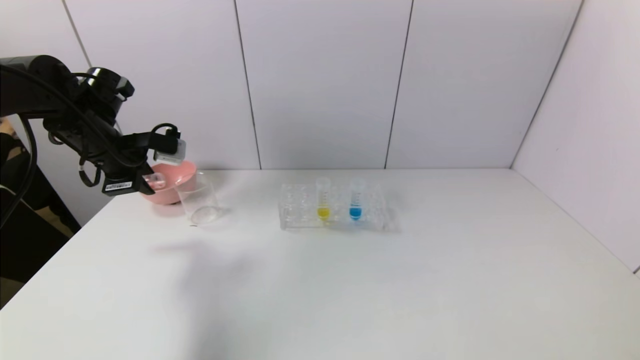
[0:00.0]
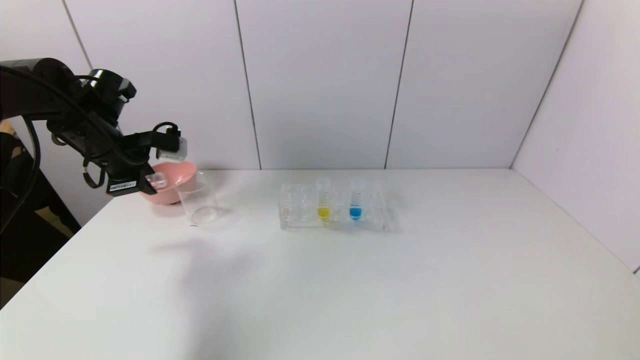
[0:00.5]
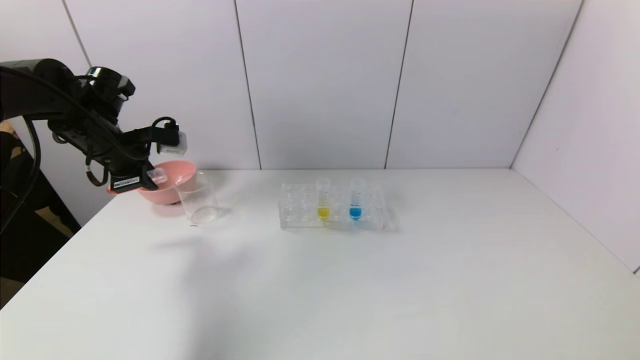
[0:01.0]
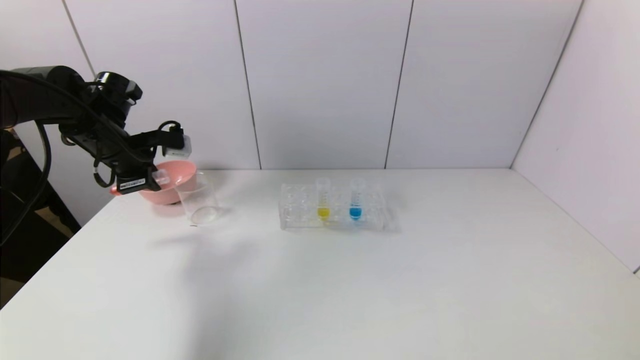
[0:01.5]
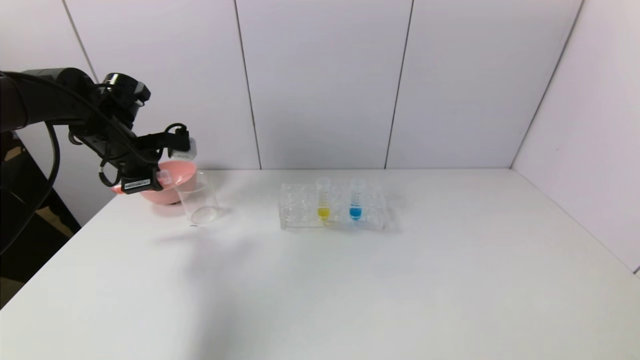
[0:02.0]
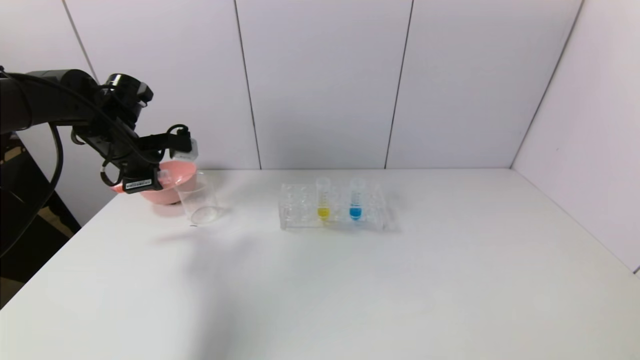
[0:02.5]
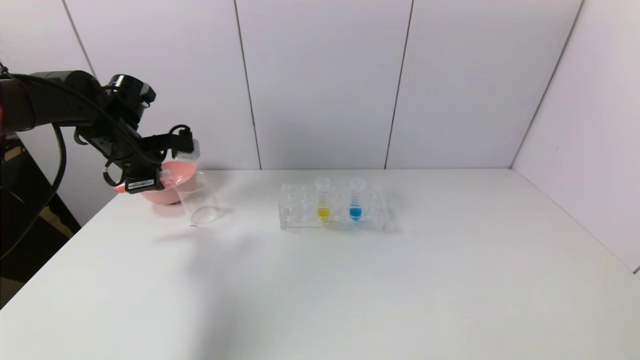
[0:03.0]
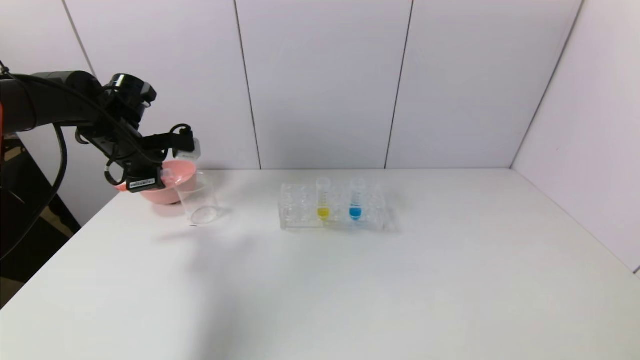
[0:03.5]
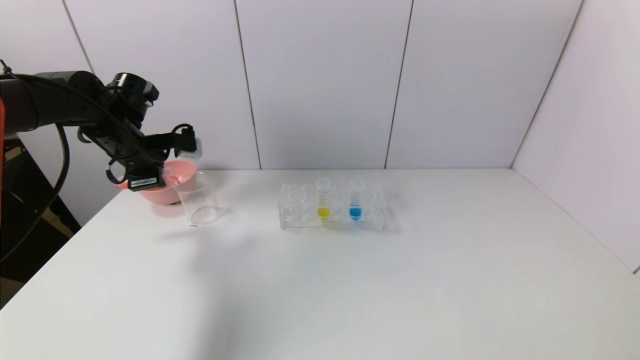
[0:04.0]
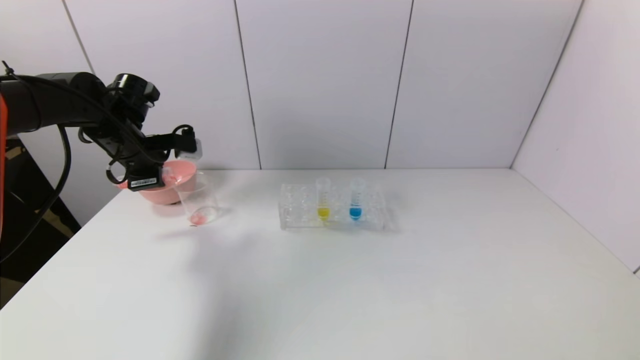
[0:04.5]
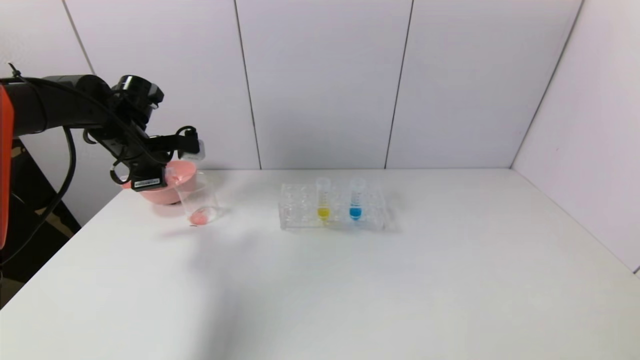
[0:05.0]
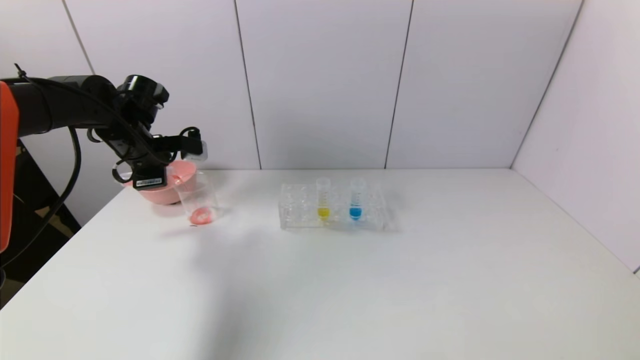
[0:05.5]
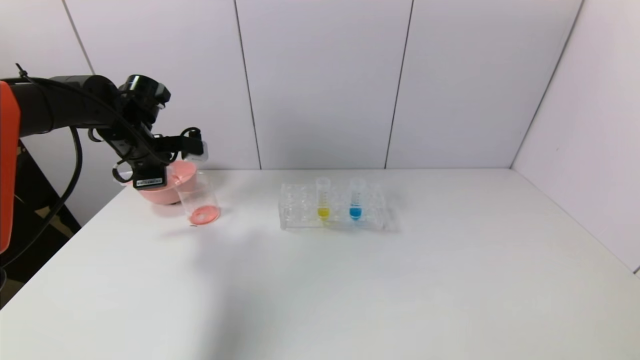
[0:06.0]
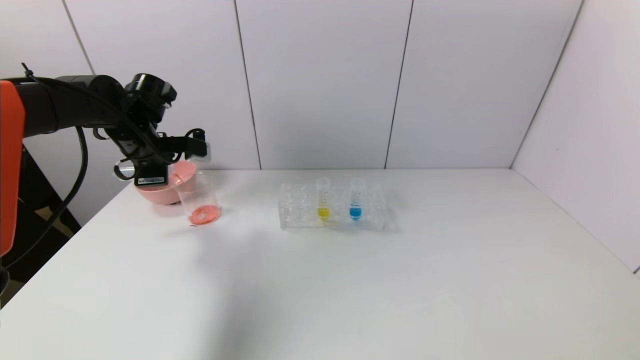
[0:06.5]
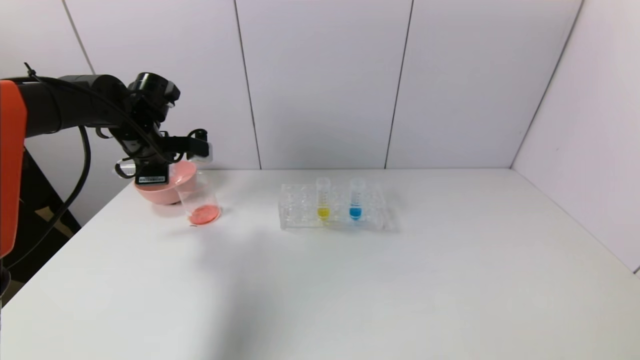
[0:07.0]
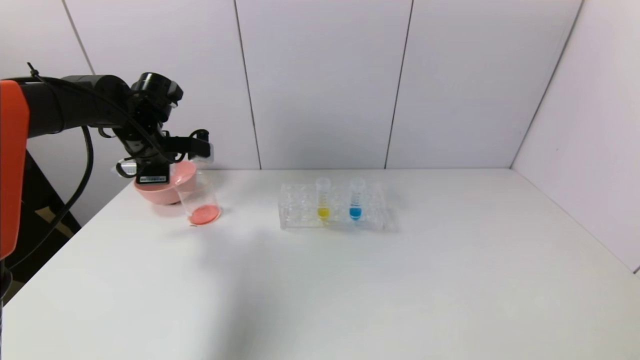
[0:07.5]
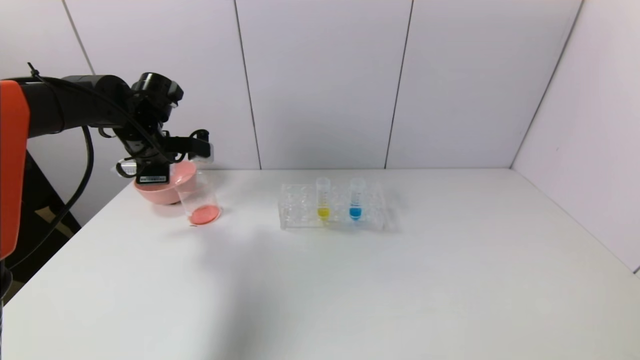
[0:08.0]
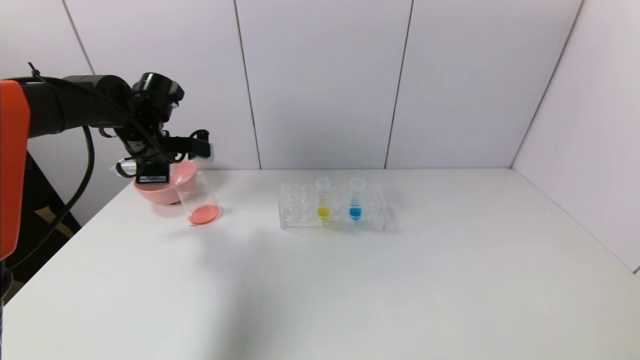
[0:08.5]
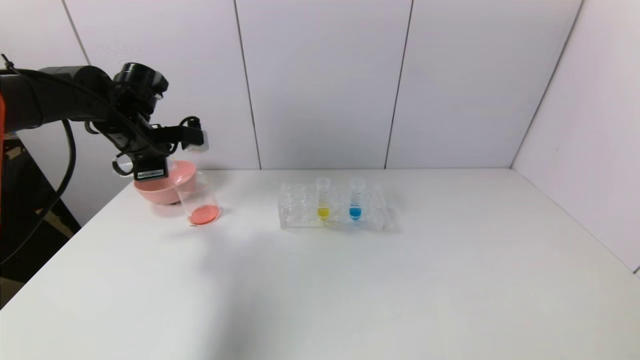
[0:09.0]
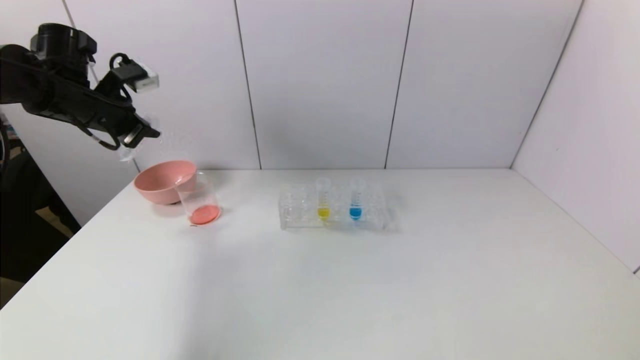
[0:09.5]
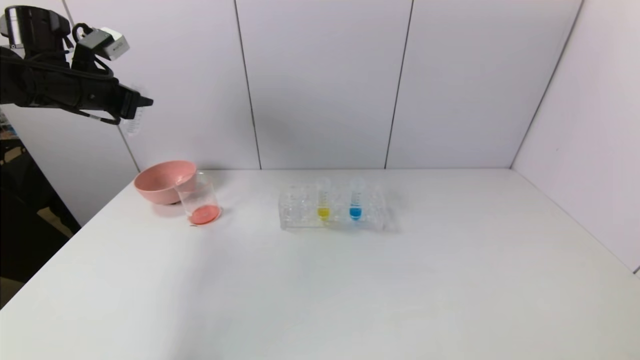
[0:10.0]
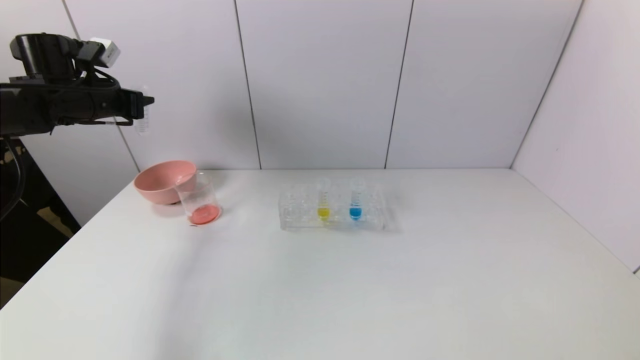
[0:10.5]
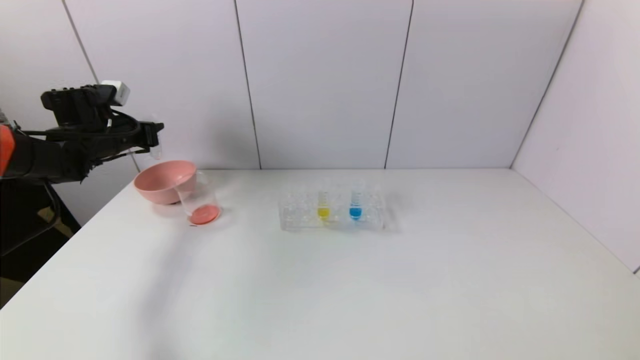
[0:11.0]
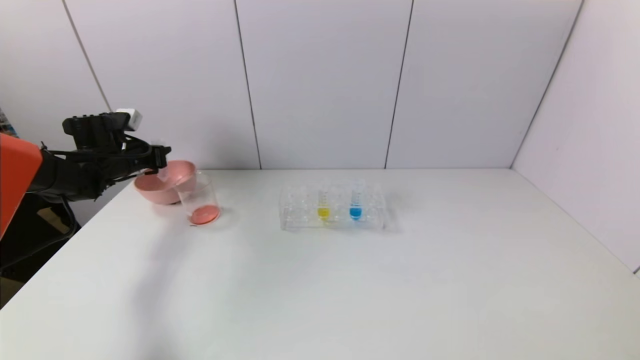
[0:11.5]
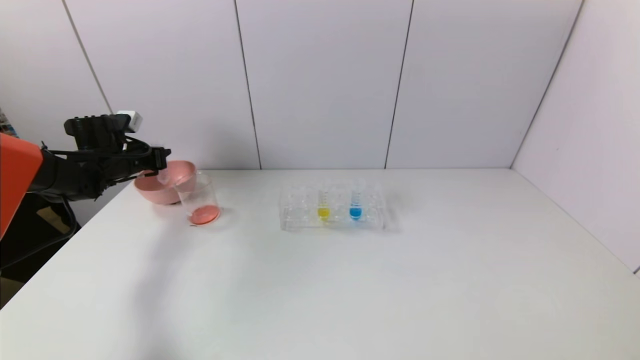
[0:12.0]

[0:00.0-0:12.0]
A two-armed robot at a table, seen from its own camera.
Task of the whole recording: pick up the test tube with red pigment and the test tube with blue pigment by grippers and pour them into the container.
Step, 0.0 to 9.5 s: Pour the red reagent into the graduated cylinder with the left gripper.
0.0 to 2.0 s: The grippers make only small movements.
2.0 to 4.0 s: Both grippers stay put.
4.0 to 8.0 s: The grippers make only small movements.
8.0 to 10.0 s: The left gripper is displaced to the left and upward by approximately 10 cm.
10.0 to 12.0 s: The left gripper travels downward by roughly 15 cm.

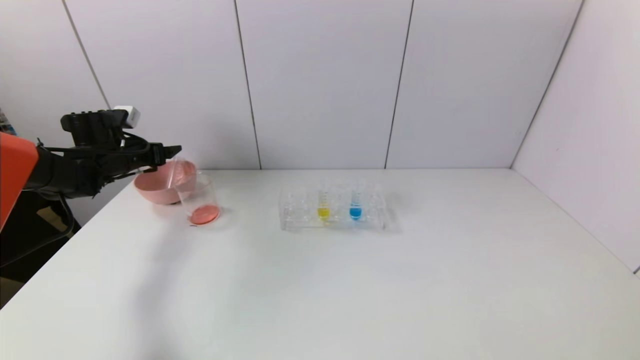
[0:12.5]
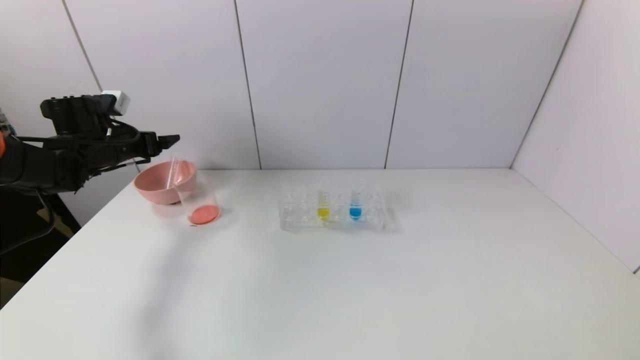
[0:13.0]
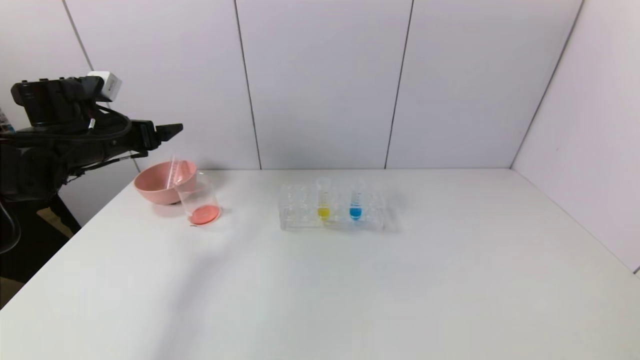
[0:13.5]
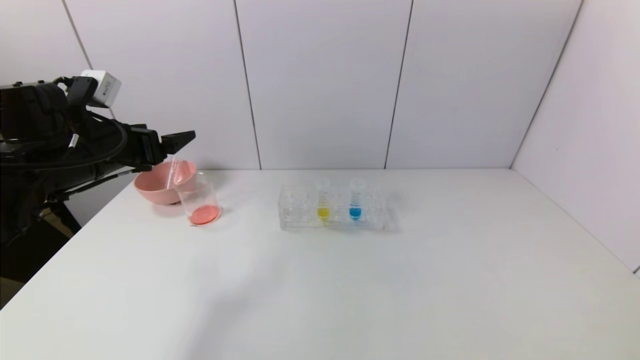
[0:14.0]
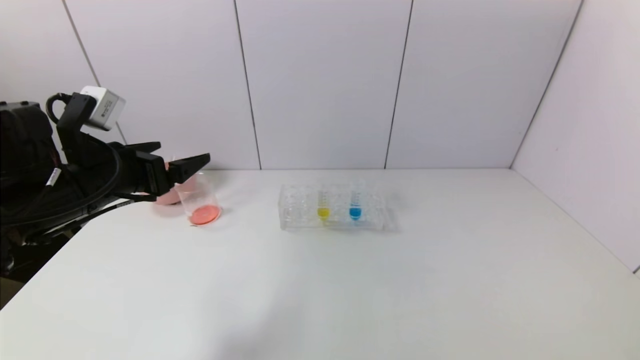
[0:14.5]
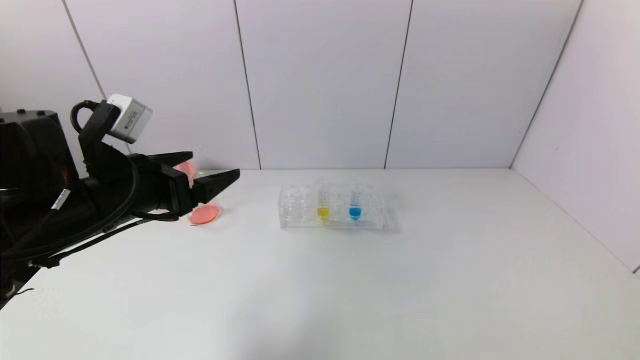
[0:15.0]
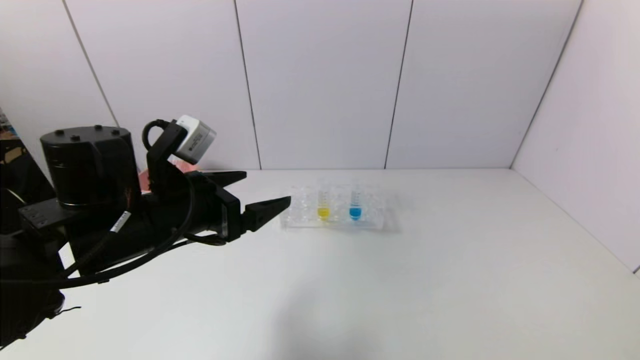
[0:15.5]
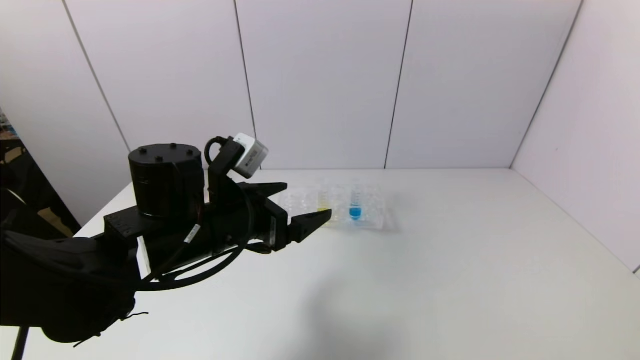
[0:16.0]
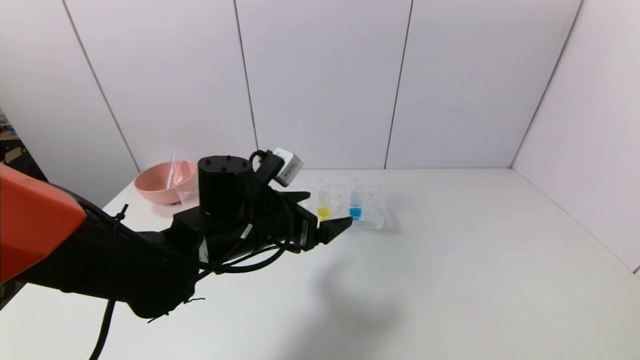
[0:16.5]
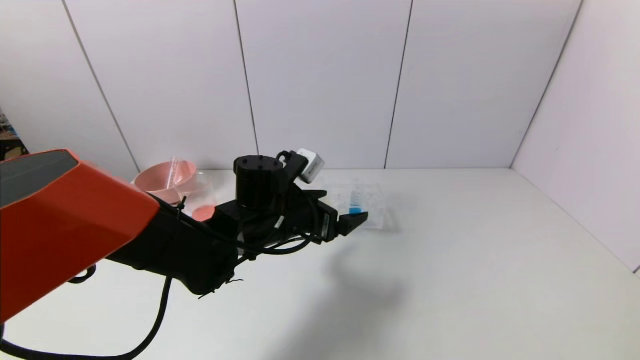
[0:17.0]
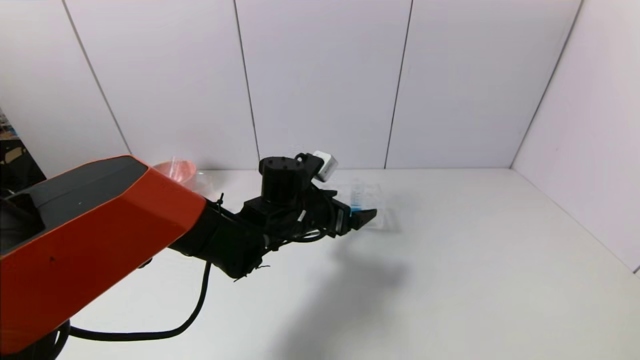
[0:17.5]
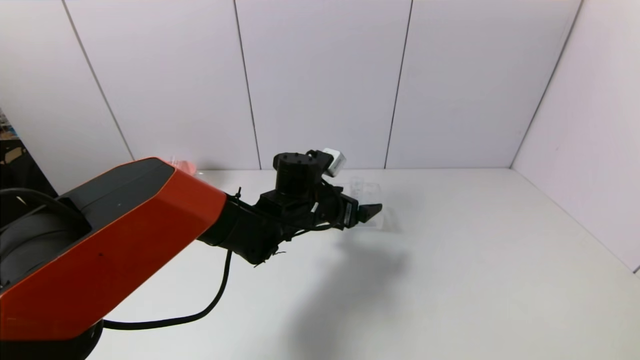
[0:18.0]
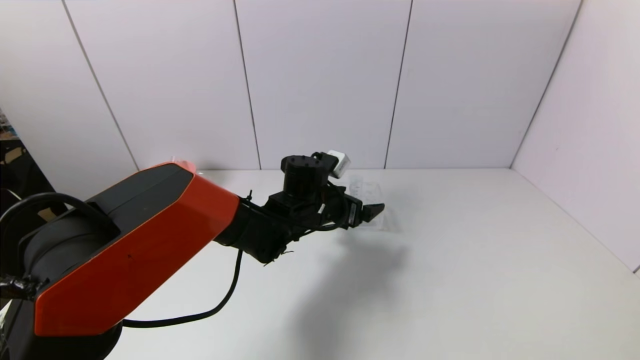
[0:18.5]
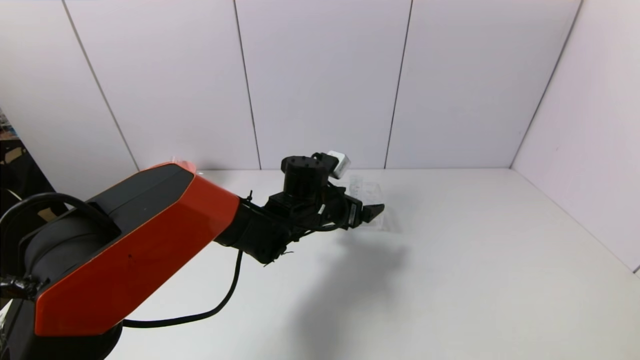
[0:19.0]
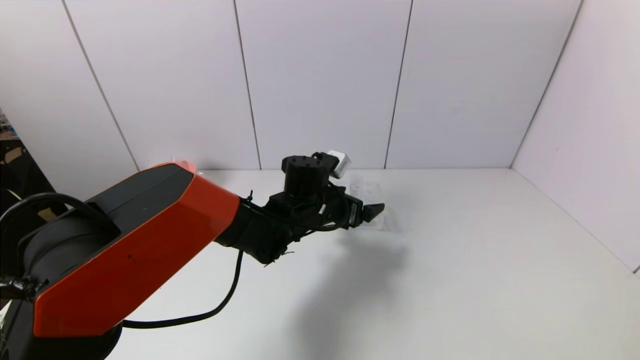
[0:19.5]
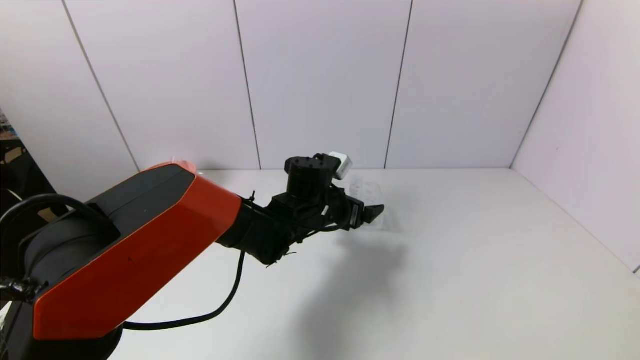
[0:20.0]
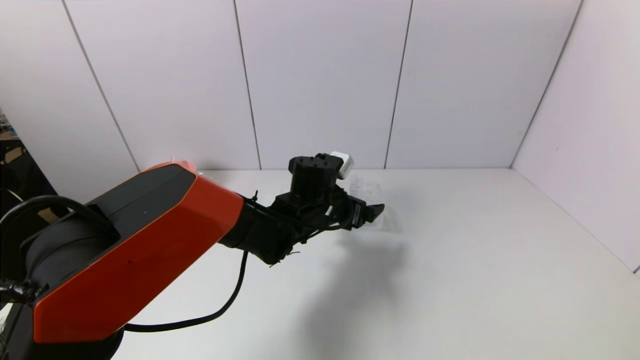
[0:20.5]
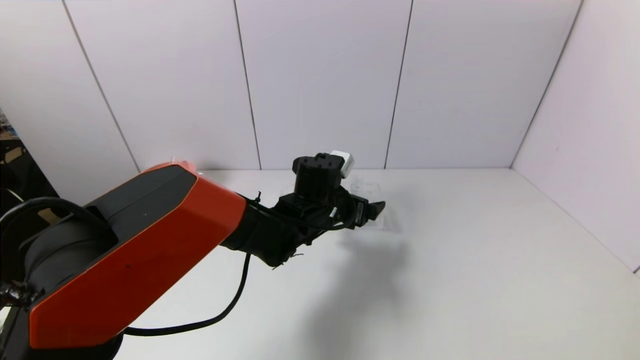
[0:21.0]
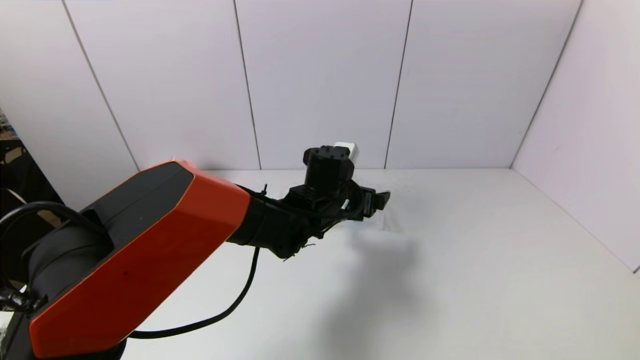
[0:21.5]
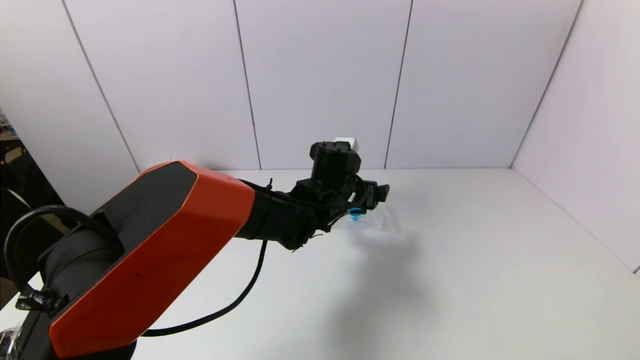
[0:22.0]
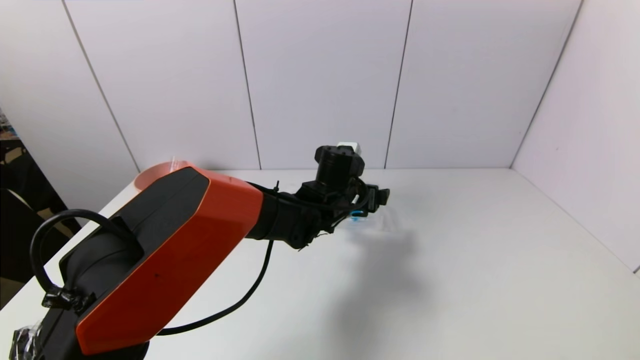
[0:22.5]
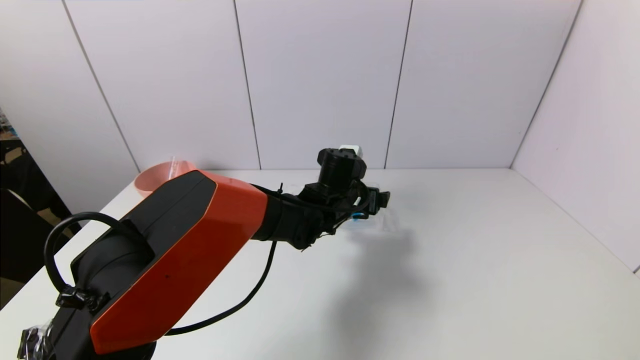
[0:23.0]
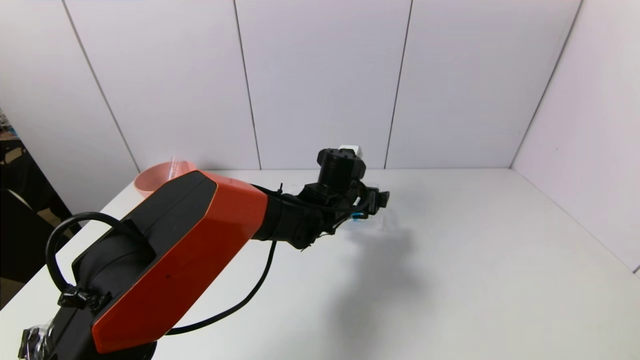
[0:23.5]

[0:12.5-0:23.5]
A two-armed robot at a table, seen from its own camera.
Task of the whole recording: pick up the test tube with red pigment and the test tube with blue pigment by grippers and pour them into the container.
12.5 to 14.5 s: The left gripper travels backward and to the right by approximately 25 cm.
14.5 to 16.0 s: The left gripper travels to the right by roughly 15 cm.
16.0 to 18.0 s: The left gripper heads forward, to the right and downward, covering some 15 cm.
18.0 to 23.5 s: The grippers stay close to where they were, moving slightly.
